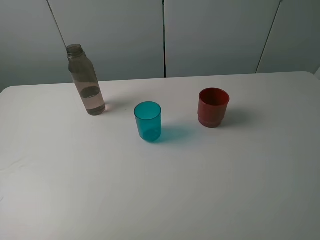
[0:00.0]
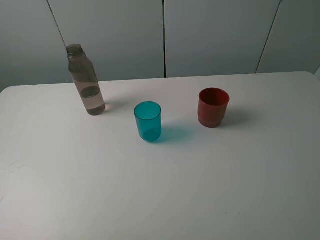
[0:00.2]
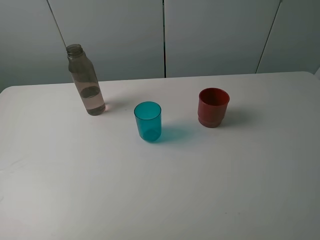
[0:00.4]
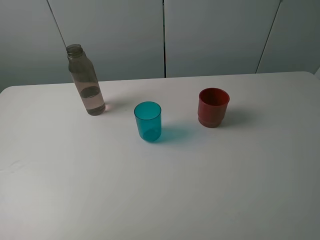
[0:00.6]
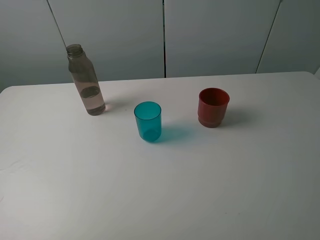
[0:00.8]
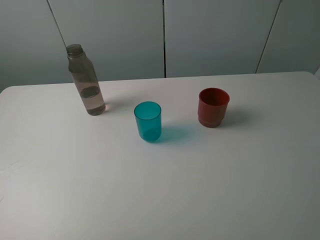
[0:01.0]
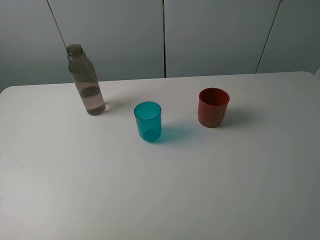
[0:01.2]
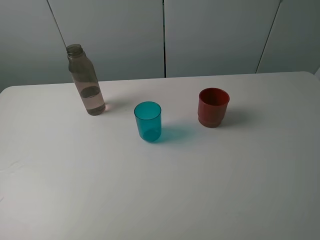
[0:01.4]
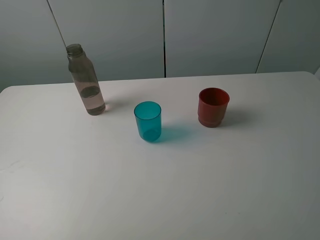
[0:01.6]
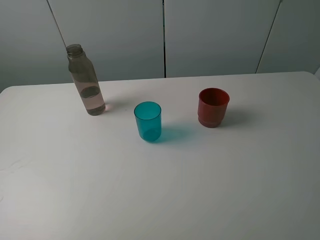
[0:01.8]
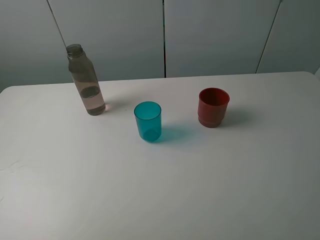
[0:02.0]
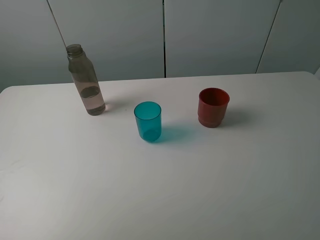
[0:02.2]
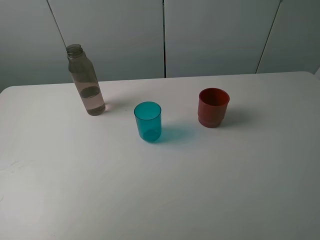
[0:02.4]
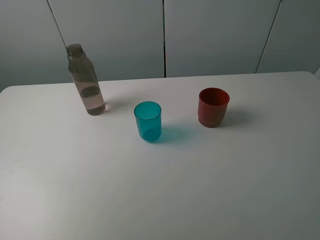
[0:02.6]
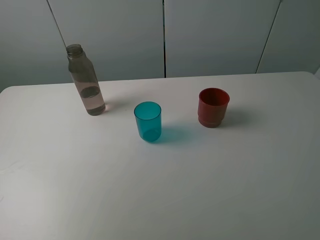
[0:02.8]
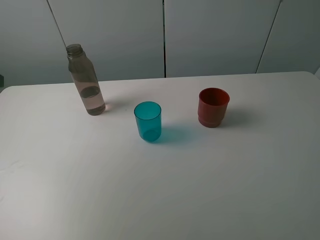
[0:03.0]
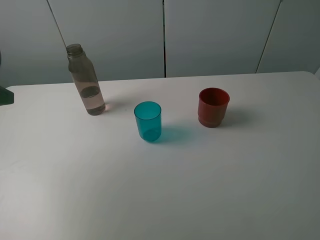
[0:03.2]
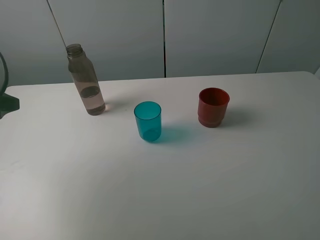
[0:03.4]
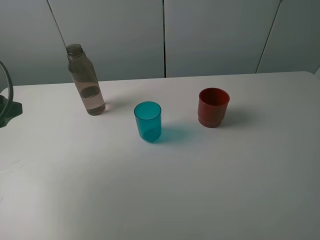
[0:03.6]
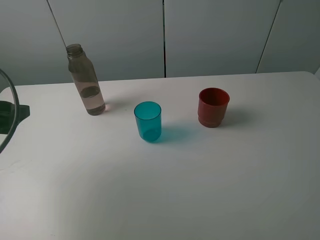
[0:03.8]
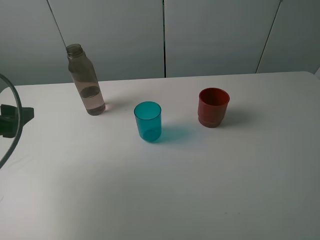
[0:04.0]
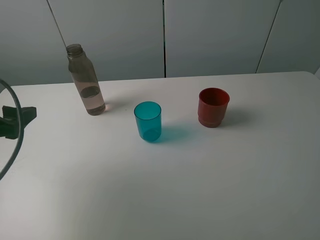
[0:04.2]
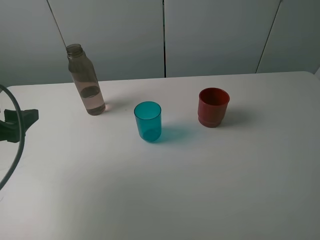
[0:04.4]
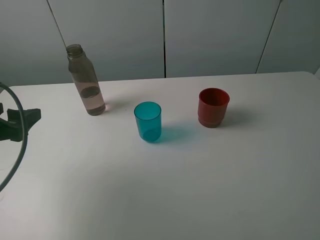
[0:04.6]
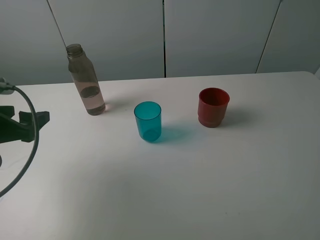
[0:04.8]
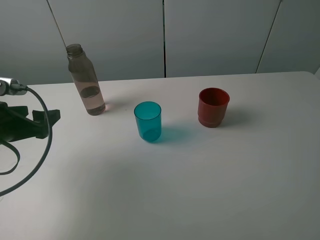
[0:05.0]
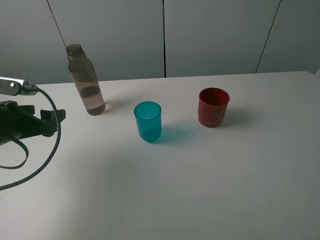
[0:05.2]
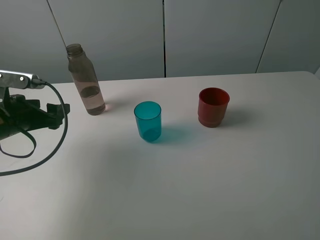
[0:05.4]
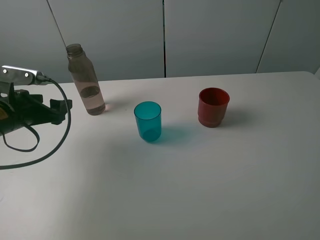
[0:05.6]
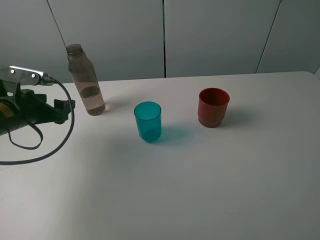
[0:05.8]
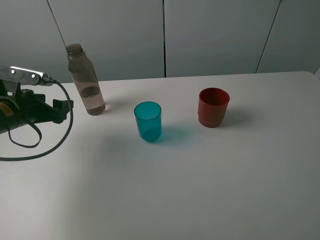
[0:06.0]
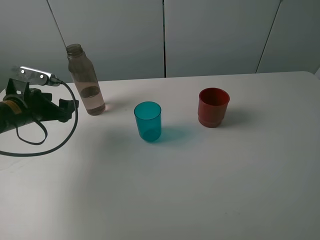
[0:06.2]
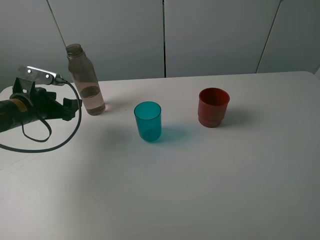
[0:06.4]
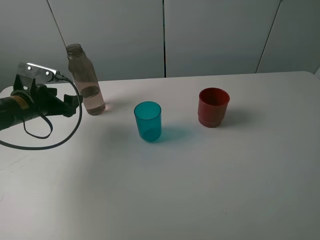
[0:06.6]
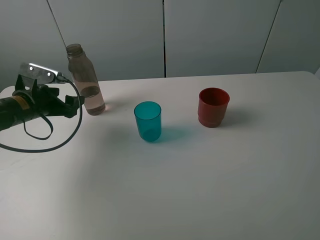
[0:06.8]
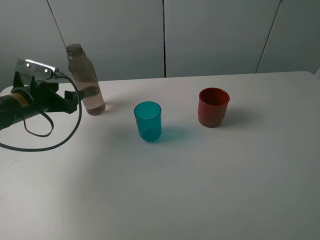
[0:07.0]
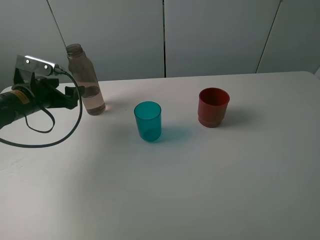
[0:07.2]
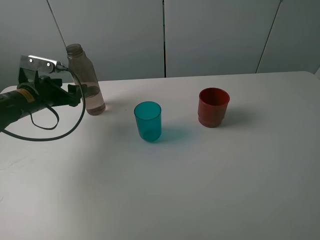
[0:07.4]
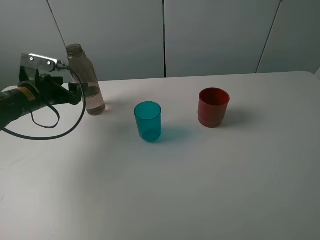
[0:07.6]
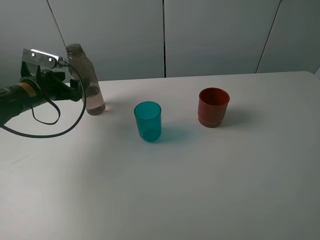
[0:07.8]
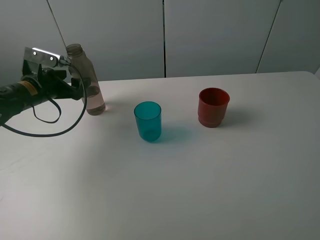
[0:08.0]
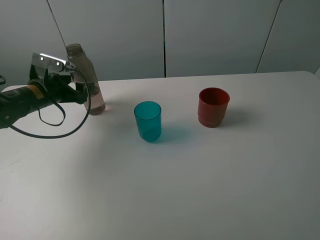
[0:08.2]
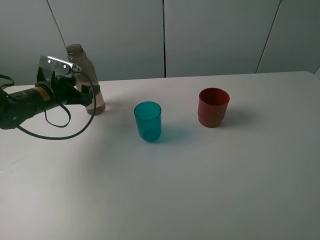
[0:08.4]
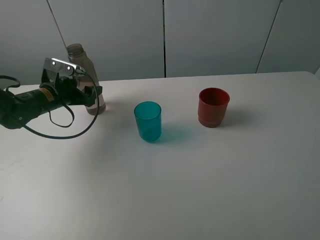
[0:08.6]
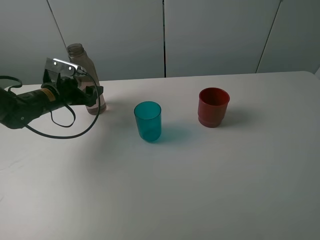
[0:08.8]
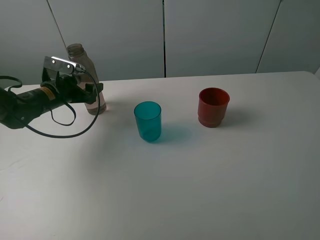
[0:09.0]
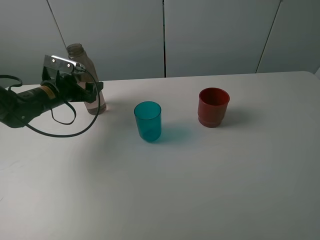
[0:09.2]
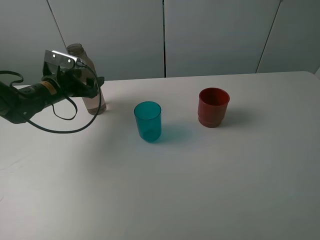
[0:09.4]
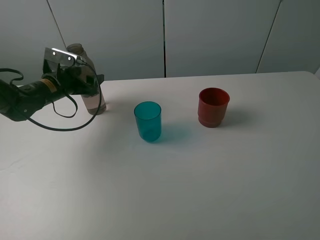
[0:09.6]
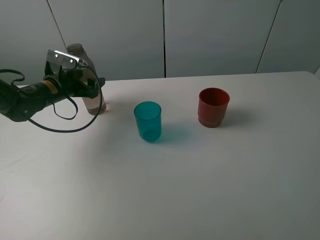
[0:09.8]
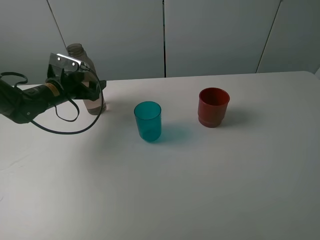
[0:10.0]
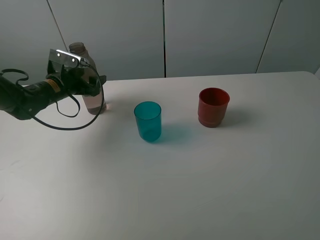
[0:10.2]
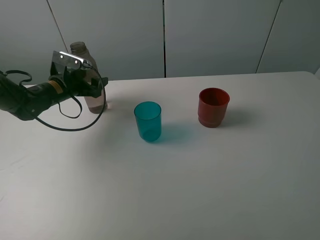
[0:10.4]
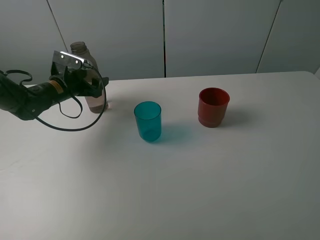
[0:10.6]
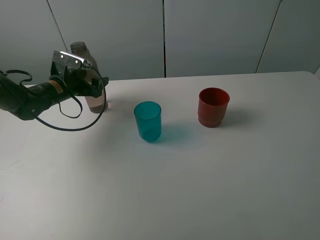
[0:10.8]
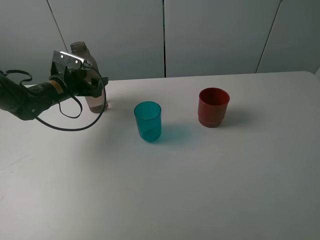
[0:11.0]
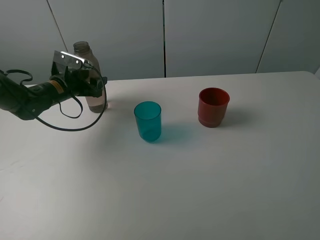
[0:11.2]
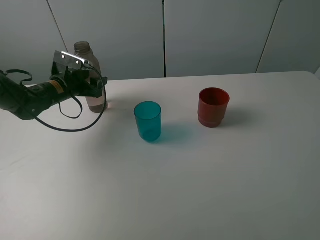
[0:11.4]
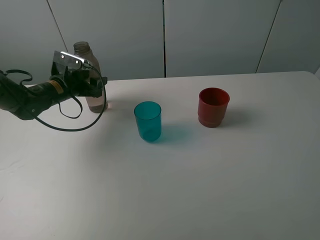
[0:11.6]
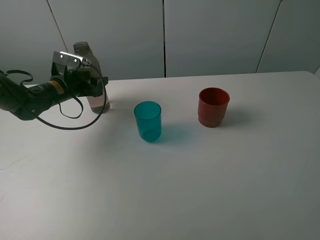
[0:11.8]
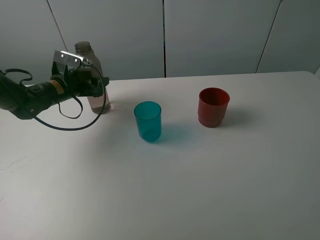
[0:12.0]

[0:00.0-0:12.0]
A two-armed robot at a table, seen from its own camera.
Task of the whole recording: pick up the bottle and pour water into the cup, then pick up the cup containing water and pour it into another cup.
Step, 0:00.0 to 0:11.6: Grasp the brown bottle with the left gripper.
0:01.6 to 0:03.0: The left gripper travels forward by some 20 cm.
0:03.0 to 0:04.4: The left gripper heads downward, covering roughly 10 cm.
0:04.4 to 0:06.0: The left gripper travels forward and downward by roughly 15 cm.
0:06.0 to 0:07.6: The left gripper moves forward, about 5 cm.
0:07.6 to 0:09.0: There are only small adjustments of the grippers.
0:09.0 to 0:10.4: The grippers stay close to where they were, moving slightly.
0:10.4 to 0:12.0: The left gripper closes.

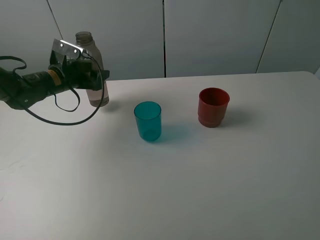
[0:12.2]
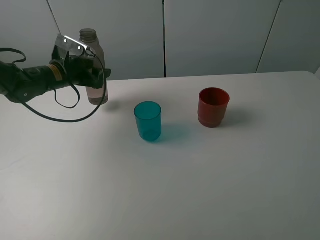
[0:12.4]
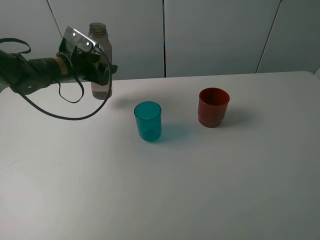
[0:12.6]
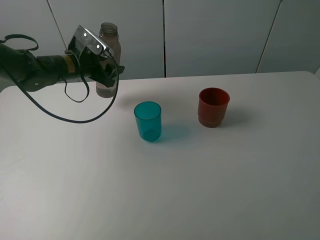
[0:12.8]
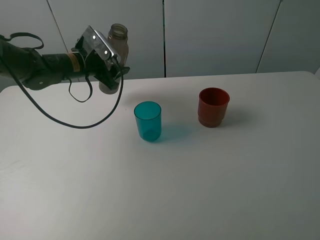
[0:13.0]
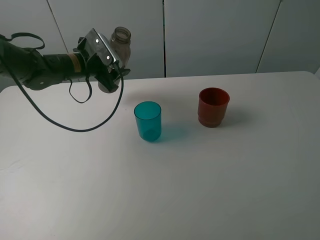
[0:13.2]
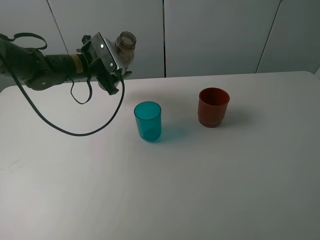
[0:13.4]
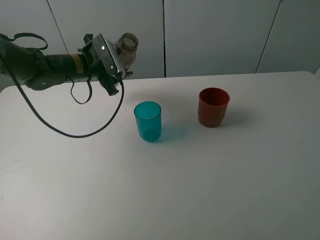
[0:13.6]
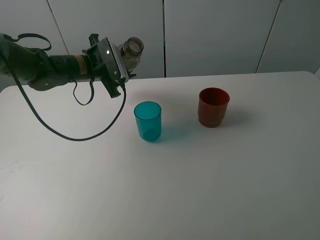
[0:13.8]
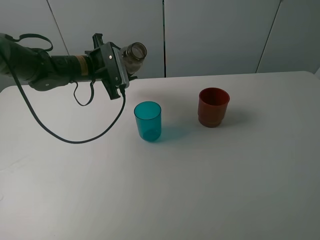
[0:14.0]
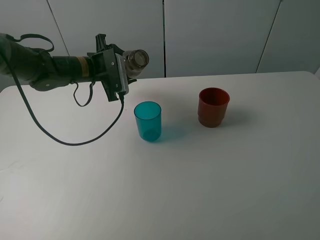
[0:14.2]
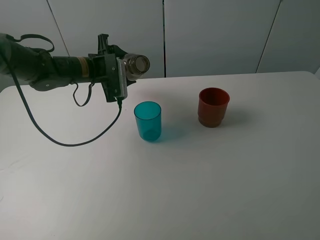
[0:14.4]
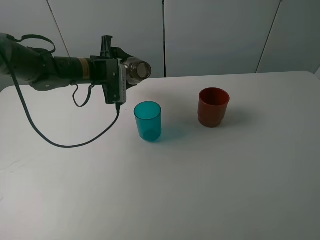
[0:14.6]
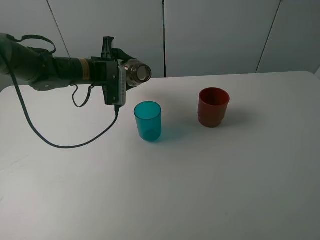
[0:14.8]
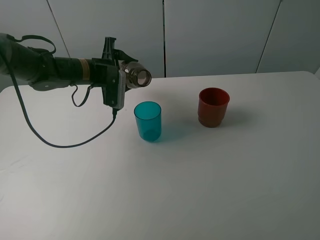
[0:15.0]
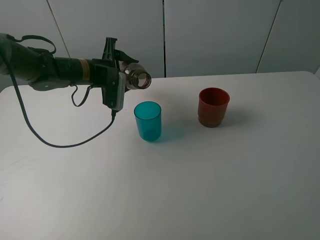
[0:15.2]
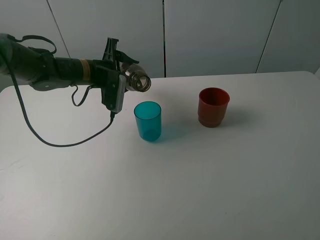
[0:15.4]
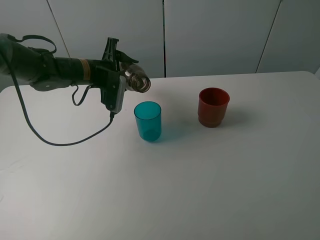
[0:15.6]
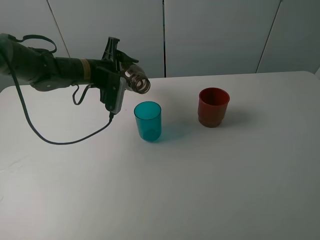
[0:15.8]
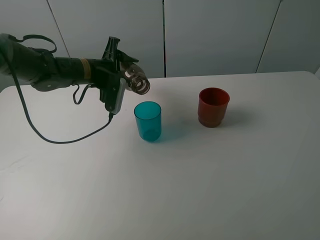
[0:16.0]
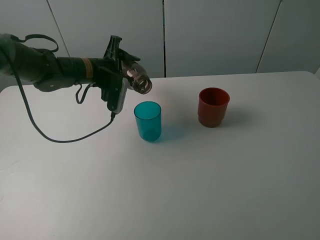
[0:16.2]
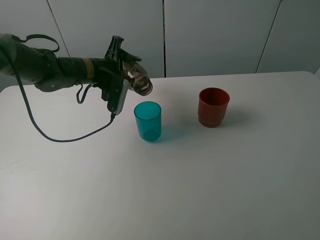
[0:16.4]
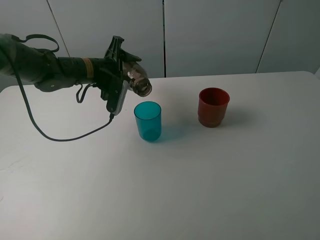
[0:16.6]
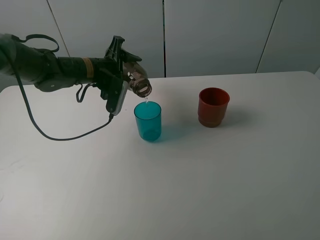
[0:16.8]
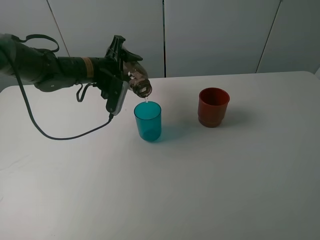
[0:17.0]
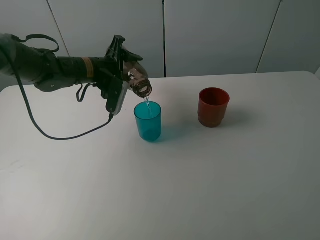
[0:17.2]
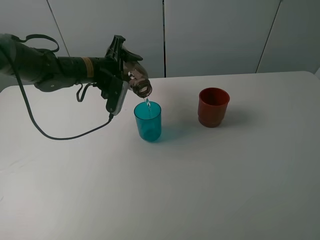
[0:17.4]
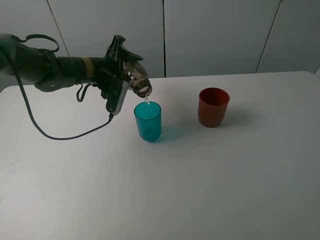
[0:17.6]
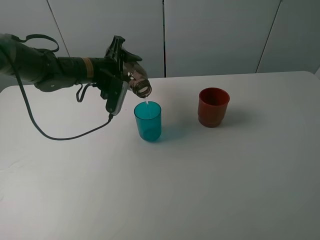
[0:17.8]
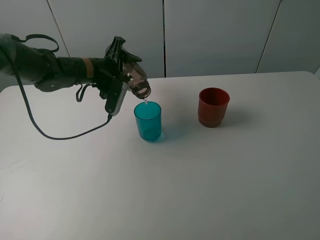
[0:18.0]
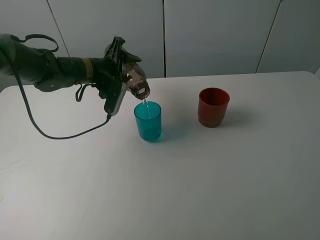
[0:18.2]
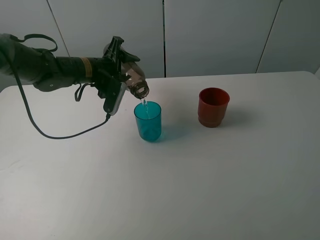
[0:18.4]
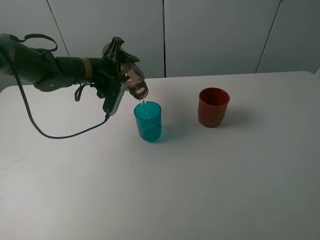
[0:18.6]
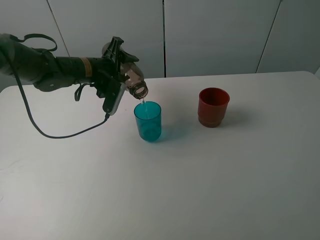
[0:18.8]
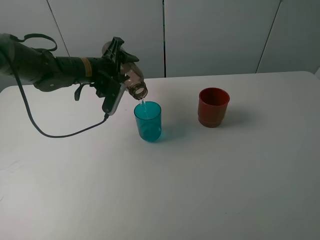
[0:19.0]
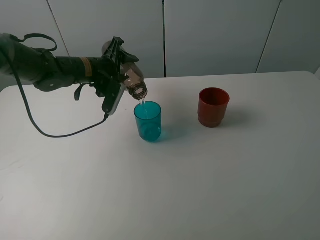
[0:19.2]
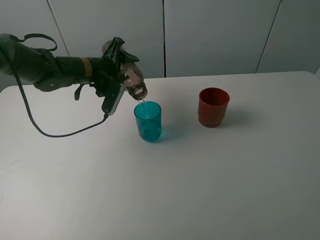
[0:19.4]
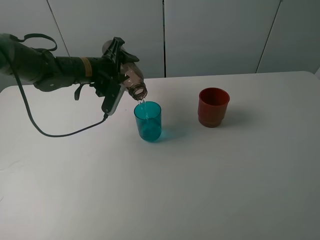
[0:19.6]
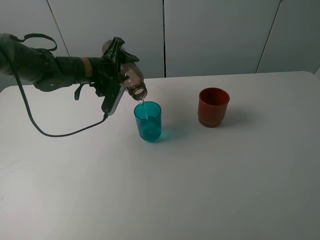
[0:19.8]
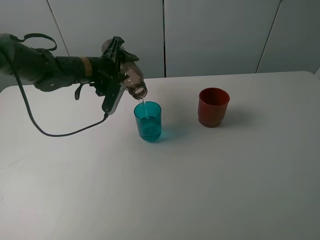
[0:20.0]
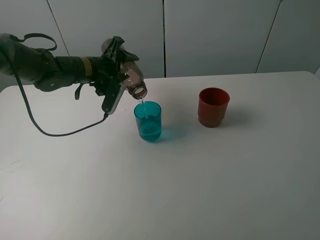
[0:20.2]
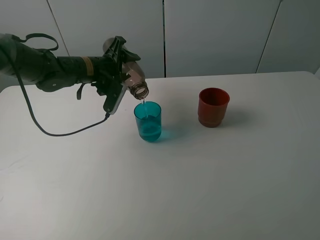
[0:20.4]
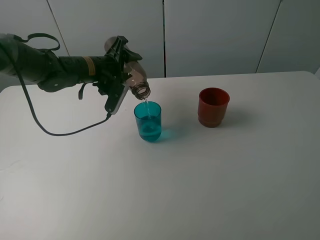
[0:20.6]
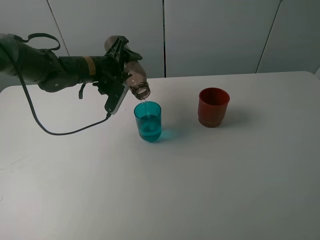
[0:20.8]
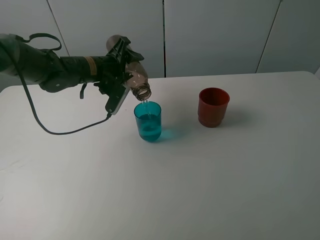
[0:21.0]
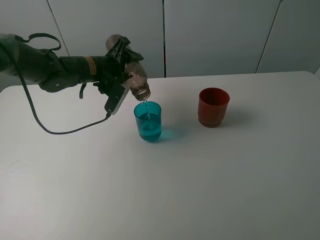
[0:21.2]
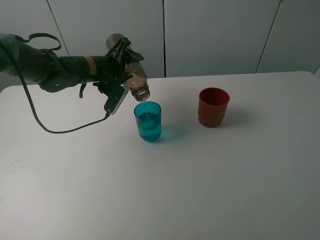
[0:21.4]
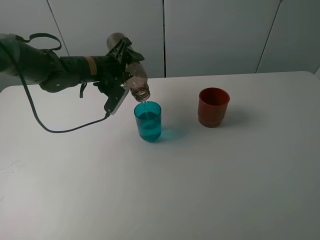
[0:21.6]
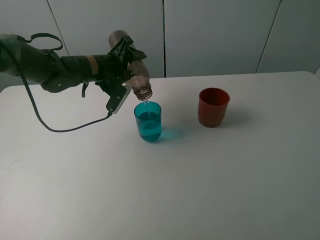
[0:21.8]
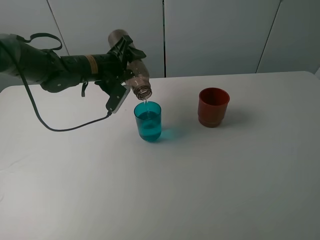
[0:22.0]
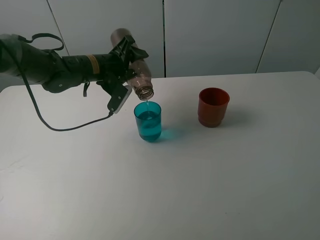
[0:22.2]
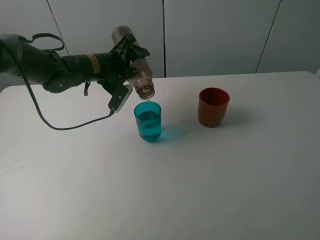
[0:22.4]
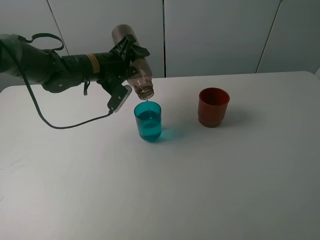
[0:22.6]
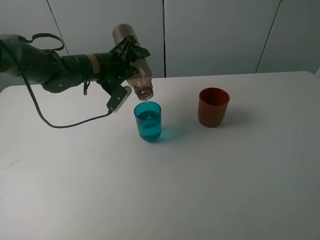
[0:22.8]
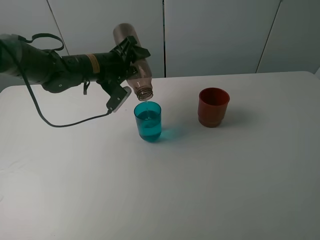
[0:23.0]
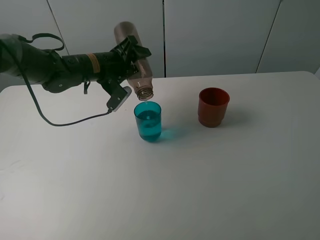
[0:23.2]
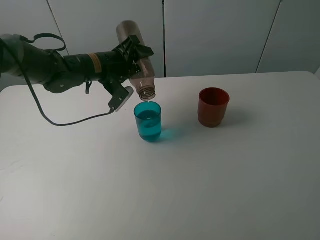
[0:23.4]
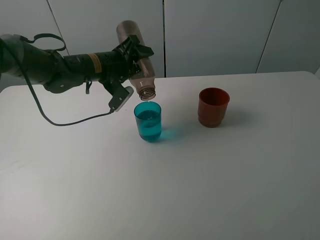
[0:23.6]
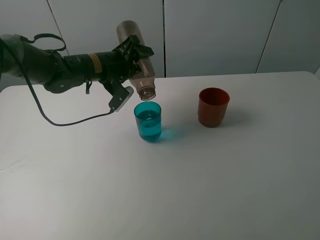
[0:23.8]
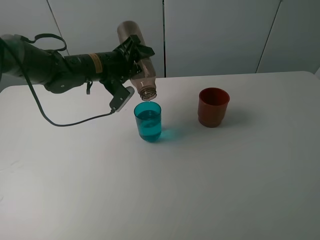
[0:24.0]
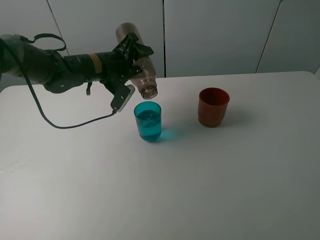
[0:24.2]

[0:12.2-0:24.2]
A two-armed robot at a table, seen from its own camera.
Task of the whole recording: pick up the bottle and pour water into the cup, then pick up the cup containing water and pour it into another cup.
Step, 0:12.2 to 0:24.2: Pour water from brown bottle to blue cup with the left gripper.
0:12.2 to 0:13.8: The left gripper heads to the right, covering some 5 cm.
0:15.2 to 0:16.6: The grippers make only small movements.
0:16.6 to 0:18.2: Both grippers stay put.
0:18.2 to 0:19.8: Both grippers stay put.
0:19.8 to 0:22.6: There are only small adjustments of the grippers.
0:22.6 to 0:24.2: The grippers stay close to where they were, moving slightly.
